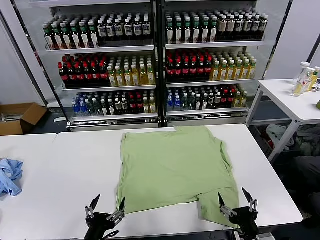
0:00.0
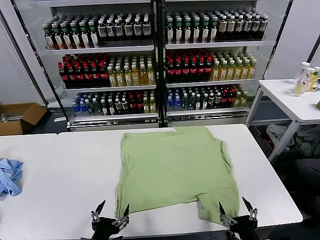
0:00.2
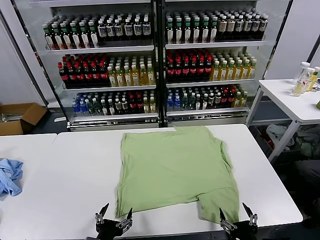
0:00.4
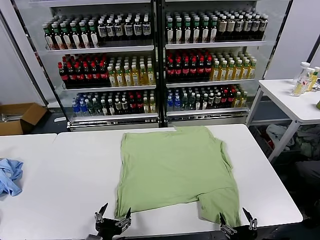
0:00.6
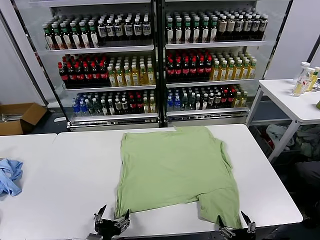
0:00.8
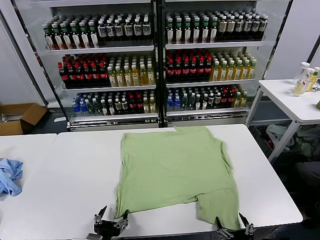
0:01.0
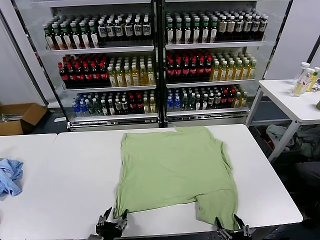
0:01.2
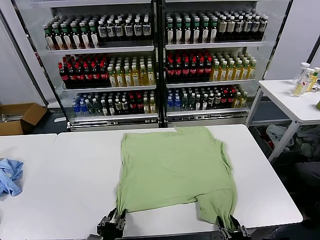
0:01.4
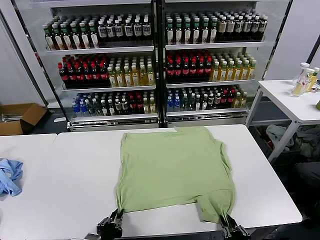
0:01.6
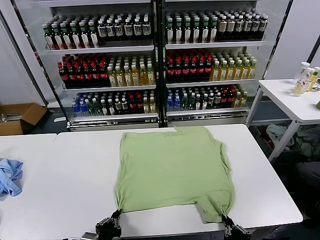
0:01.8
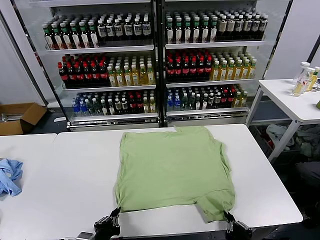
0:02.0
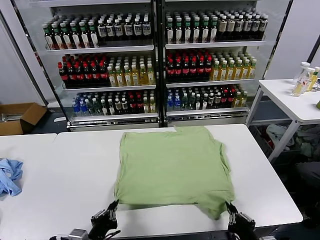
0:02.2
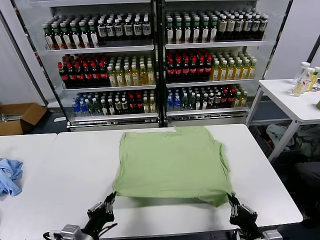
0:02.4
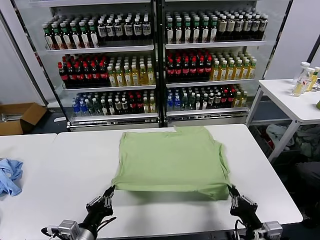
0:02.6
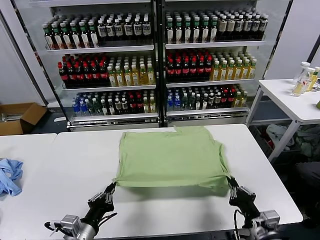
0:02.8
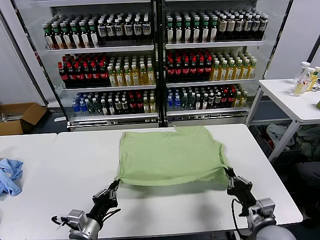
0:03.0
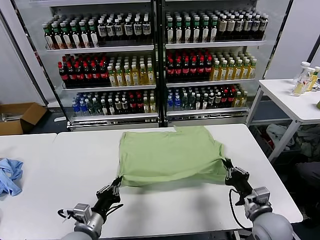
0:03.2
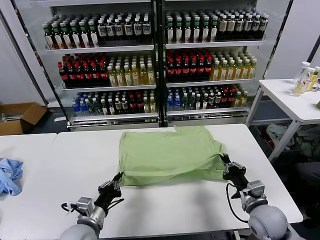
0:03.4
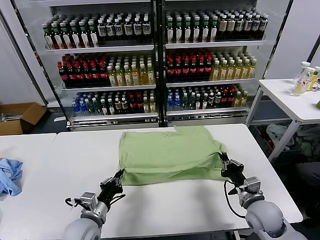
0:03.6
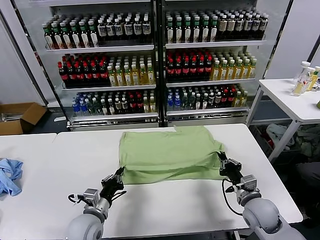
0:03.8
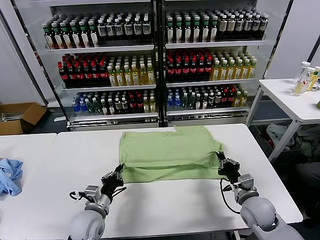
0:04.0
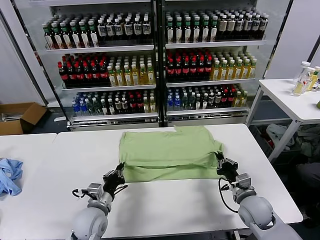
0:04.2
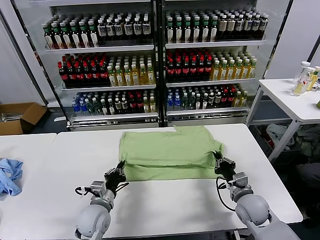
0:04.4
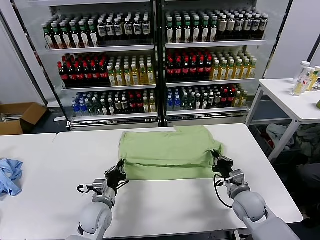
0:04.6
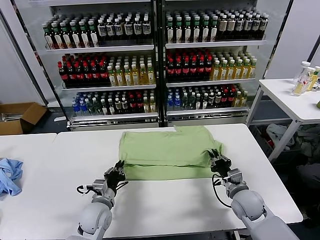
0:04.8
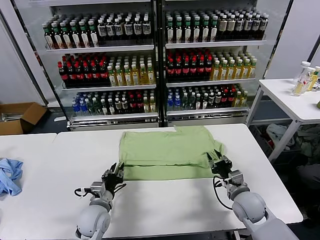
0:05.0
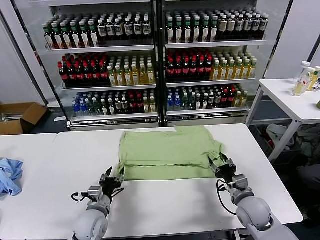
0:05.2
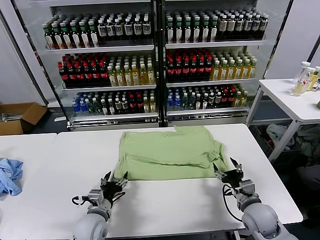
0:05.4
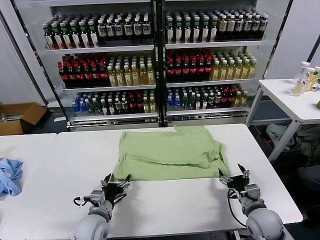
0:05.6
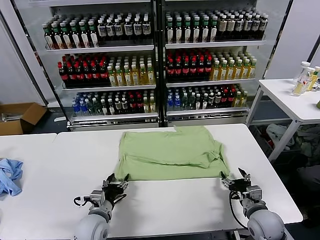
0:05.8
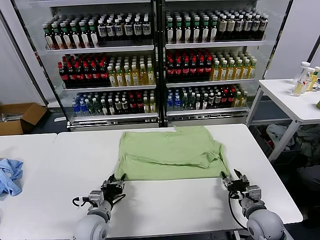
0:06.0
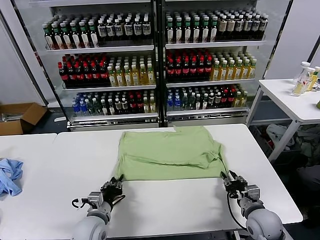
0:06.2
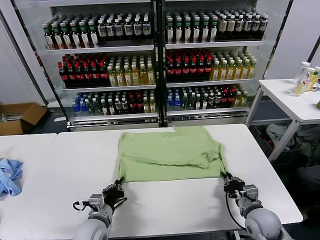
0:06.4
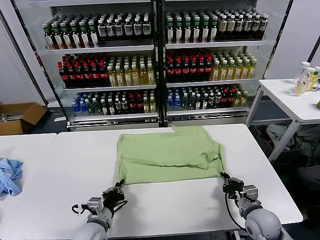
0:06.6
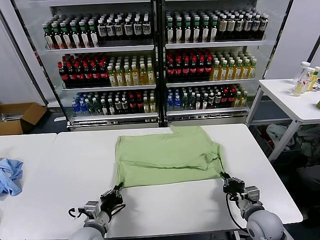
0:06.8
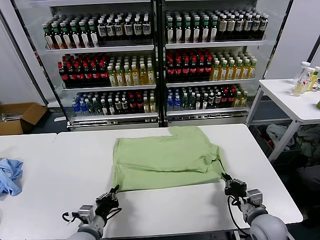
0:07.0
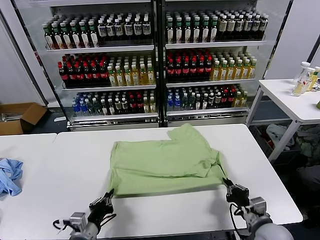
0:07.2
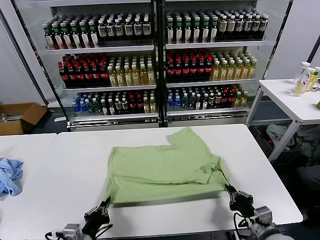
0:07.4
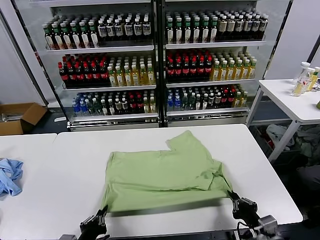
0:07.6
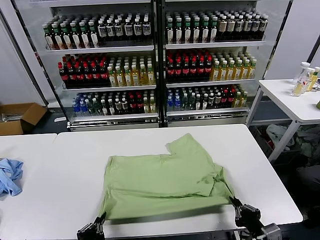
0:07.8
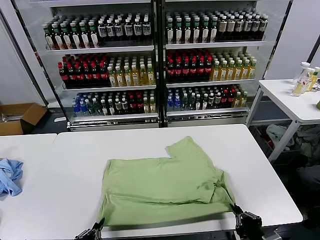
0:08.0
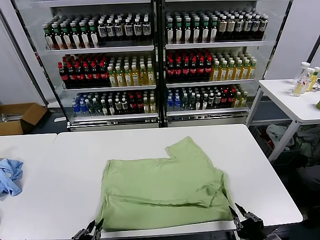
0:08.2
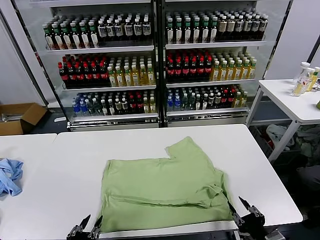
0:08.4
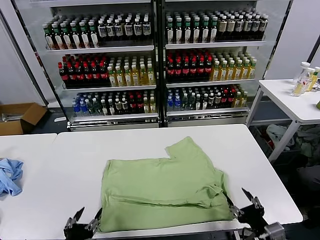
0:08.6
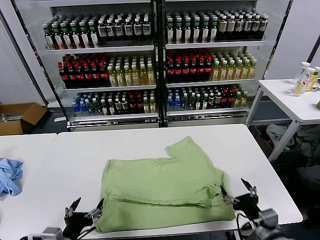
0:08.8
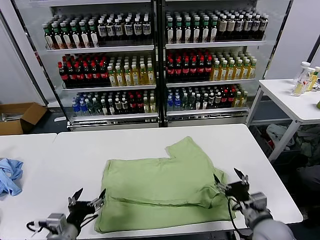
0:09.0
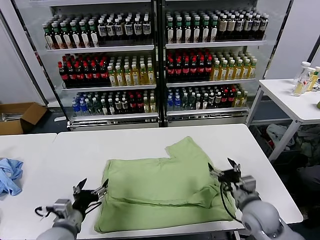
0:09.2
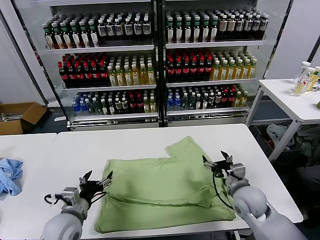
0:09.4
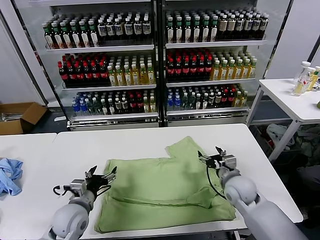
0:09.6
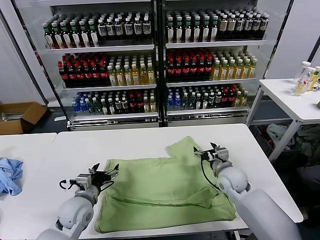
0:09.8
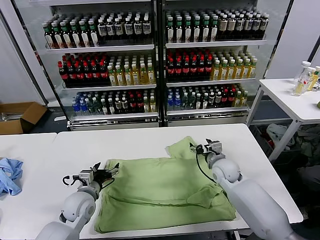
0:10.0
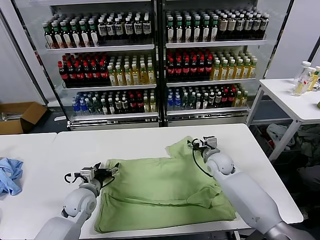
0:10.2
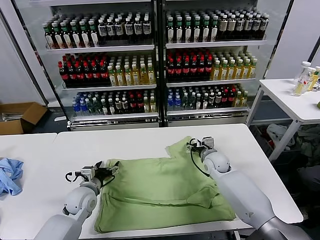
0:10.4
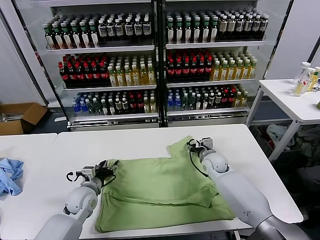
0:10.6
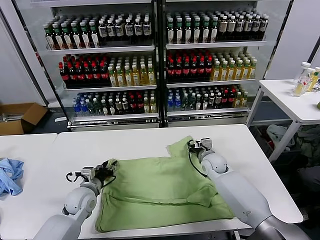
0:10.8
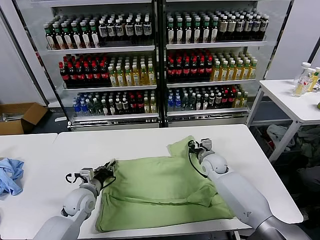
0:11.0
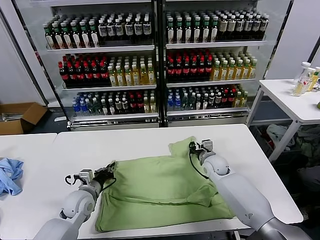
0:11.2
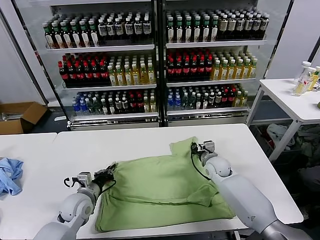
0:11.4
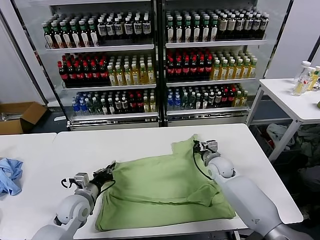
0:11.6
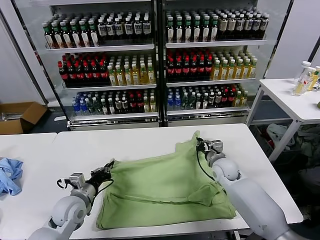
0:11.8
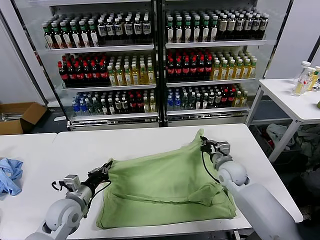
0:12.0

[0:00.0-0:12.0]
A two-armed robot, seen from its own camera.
Task of the whole recording: fold and organize the clothes.
Step, 0:00.0 to 0:02.0: use both grippers simultaneously to clamp the lower edge of the clothing fabric.
Step, 0:02.2 to 0:05.0: use both grippers to drag the lower edge of the fabric forward and fold it over the upper edge.
Step, 0:05.2 to 0:08.2: Drag the clothes downward with both gripper.
Step, 0:08.6 to 0:11.0: use both grippers simultaneously to clamp the upper edge of the clothing fabric.
0:01.6 to 0:03.0: The left gripper goes roughly 5 cm forward. The right gripper is displaced forward by about 15 cm.
0:03.0 to 0:04.4: The two grippers go approximately 10 cm forward.
0:04.4 to 0:06.0: The right gripper goes about 5 cm backward, and opens up; the left gripper opens its fingers.
0:06.0 to 0:07.6: The two grippers go about 15 cm backward. The left gripper closes up. Meanwhile the right gripper closes.
0:07.6 to 0:09.0: The left gripper is displaced forward by about 5 cm, and opens up. Meanwhile the right gripper heads forward, covering roughly 10 cm, and opens its fingers.
0:09.0 to 0:10.4: Both grippers travel together forward, approximately 20 cm.
0:10.4 to 0:12.0: Both grippers travel together backward, some 5 cm. The right gripper closes. Meanwhile the left gripper closes its fingers.

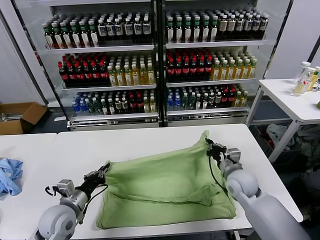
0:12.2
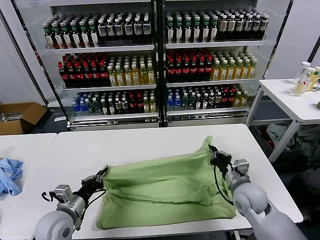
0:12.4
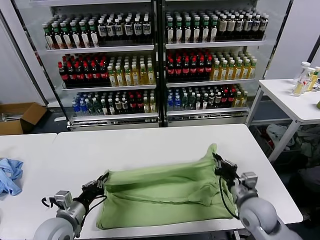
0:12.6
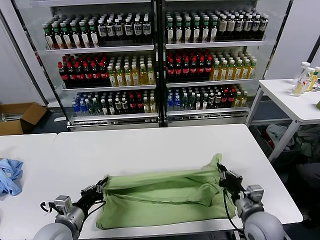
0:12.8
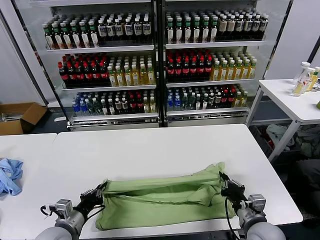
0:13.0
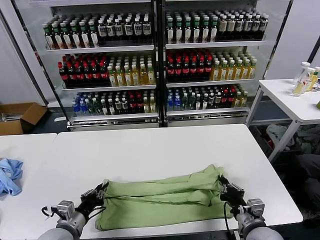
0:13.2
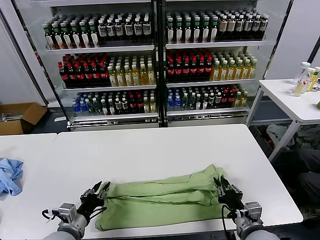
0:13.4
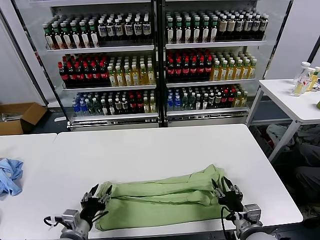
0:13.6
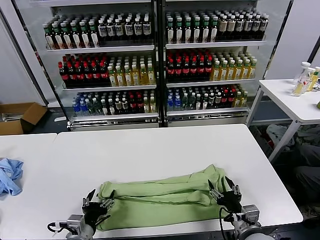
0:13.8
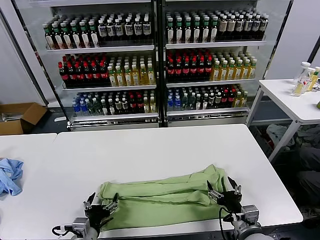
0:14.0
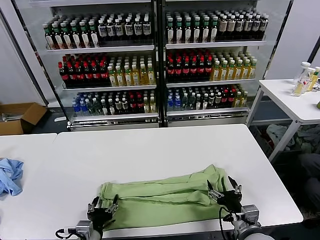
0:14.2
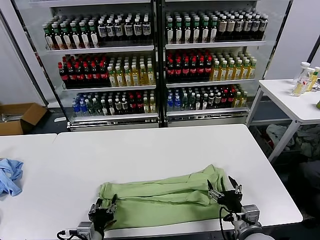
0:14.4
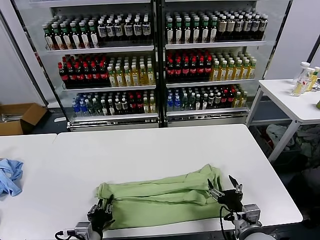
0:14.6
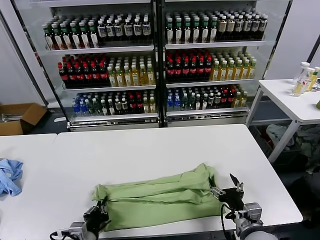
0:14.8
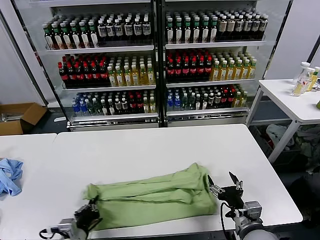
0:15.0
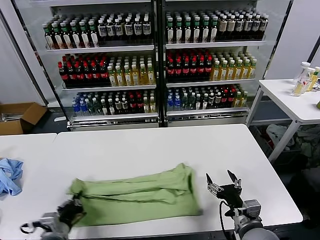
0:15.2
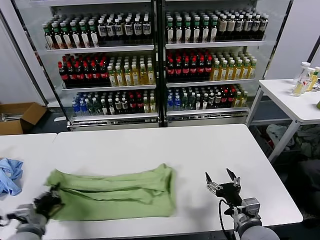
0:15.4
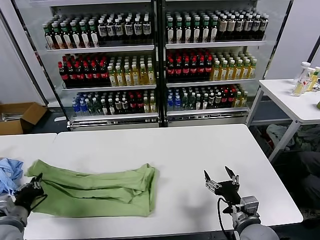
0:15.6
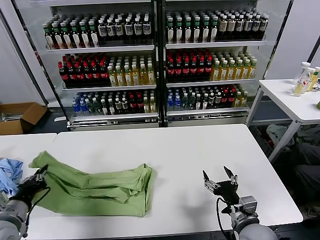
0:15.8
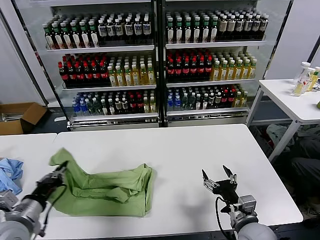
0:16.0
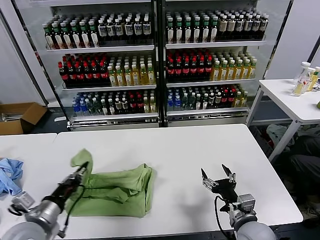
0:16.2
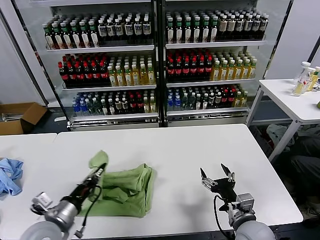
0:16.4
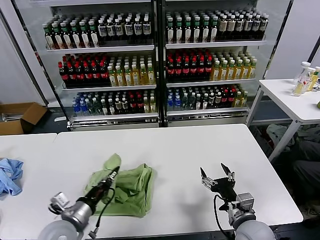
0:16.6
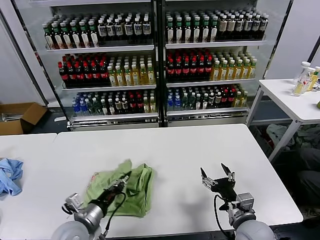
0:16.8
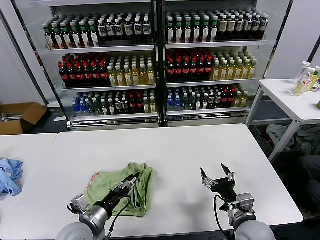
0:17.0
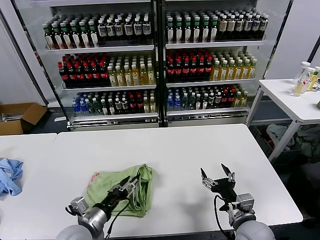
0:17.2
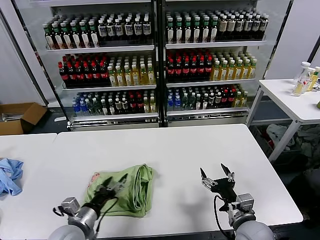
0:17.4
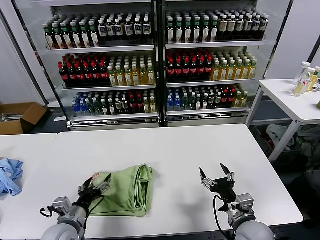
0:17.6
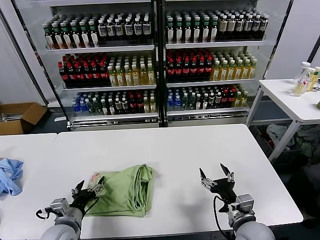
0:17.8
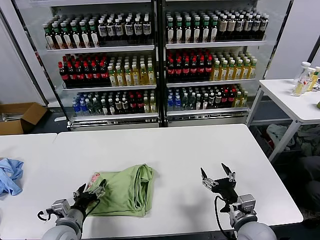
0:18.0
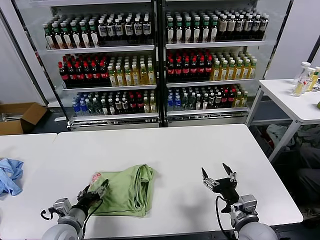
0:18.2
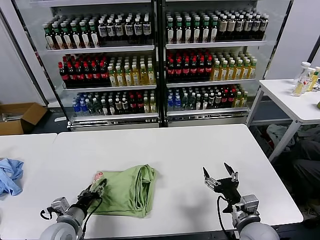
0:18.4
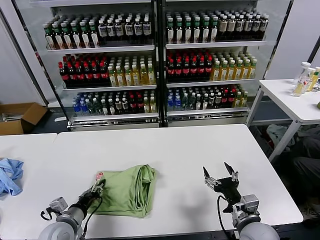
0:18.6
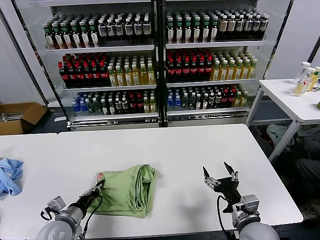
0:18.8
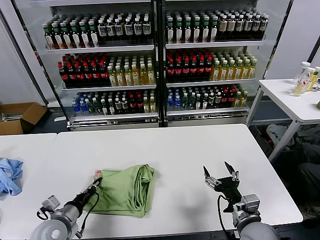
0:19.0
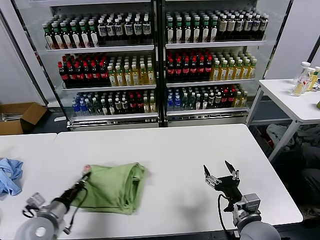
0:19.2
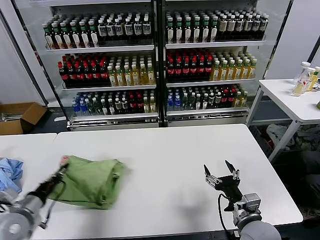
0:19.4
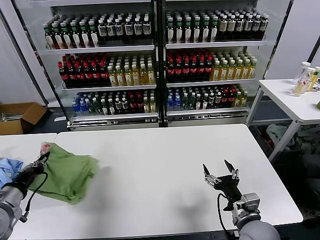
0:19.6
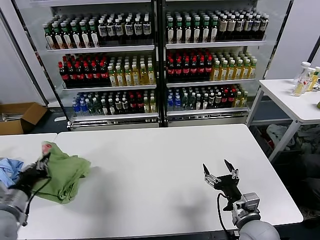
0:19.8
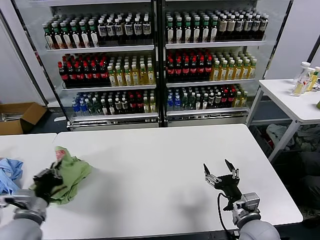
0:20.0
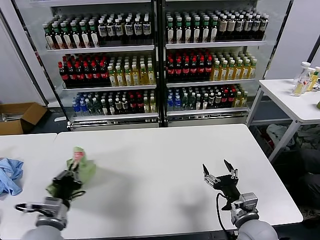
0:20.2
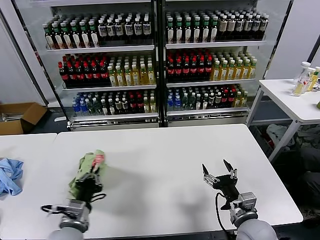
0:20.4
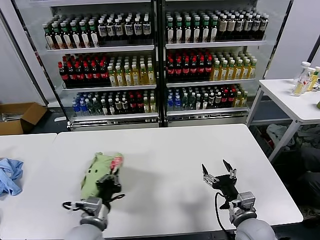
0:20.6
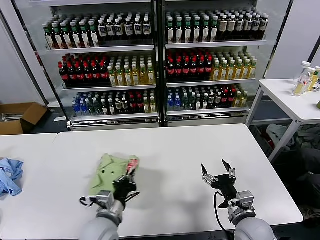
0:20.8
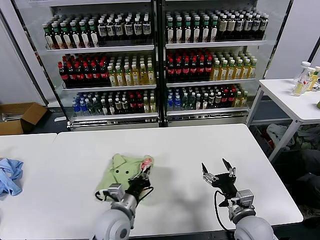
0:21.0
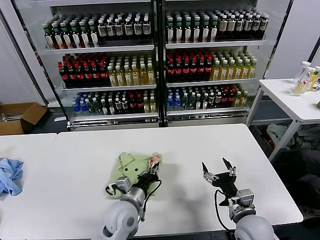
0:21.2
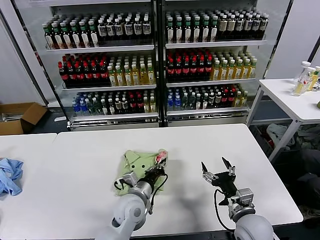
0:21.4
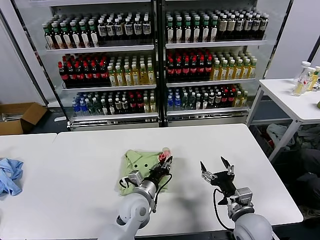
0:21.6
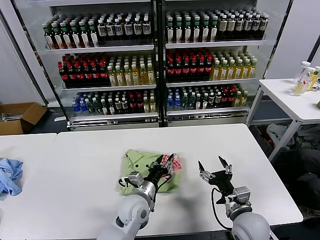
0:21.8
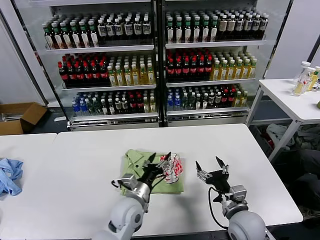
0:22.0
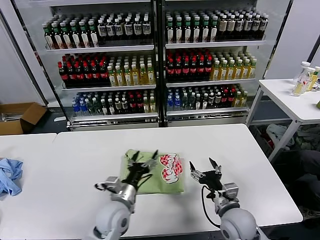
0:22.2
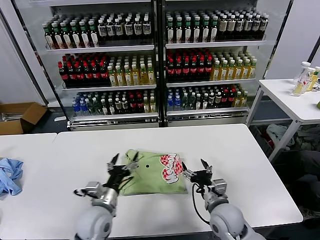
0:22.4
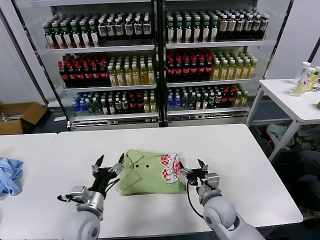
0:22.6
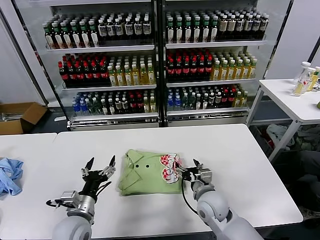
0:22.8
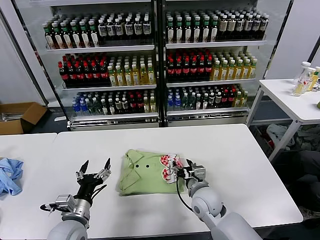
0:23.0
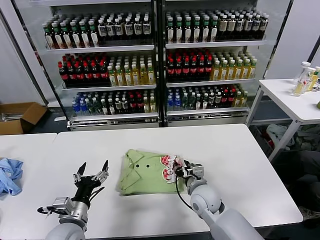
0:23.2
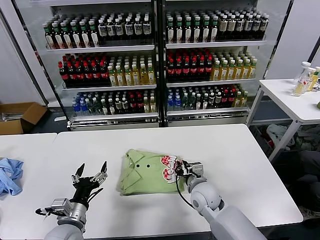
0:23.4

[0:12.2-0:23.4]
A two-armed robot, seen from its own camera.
Task of the whole recording: fold and organize the clothes.
Step, 0:12.2 to 0:13.6: use both grippers to drag the upper edge of the fabric backward and fold it over the lower edge.
Step, 0:13.8 to 0:14.8: use the left gripper to clamp the left edge of the fabric.
Step, 0:15.0 to 0:17.2: use the left gripper to drag the left edge of the fabric to the left and folds it over the right edge.
Step, 0:17.4 to 0:21.8: Flip the folded clothes over with left gripper.
0:12.2 to 0:13.8: The left gripper is displaced backward and to the right by roughly 10 cm, and opens. Meanwhile the right gripper is displaced backward by some 20 cm, and opens.
0:13.8 to 0:15.4: The left gripper is displaced to the left by some 10 cm, and closes its fingers.
0:15.4 to 0:17.0: The left gripper heads to the right, covering about 15 cm, and opens.
0:17.0 to 0:18.6: The left gripper goes approximately 10 cm to the left, and opens, then closes once more.
0:18.6 to 0:20.2: The left gripper moves upward, roughly 10 cm, and closes.
0:20.2 to 0:21.8: The left gripper goes approximately 25 cm to the right and forward, and opens.
0:21.8 to 0:23.4: The left gripper goes approximately 20 cm to the left and backward, and opens its fingers. Meanwhile the right gripper travels to the left and forward by about 15 cm, and closes its fingers.
